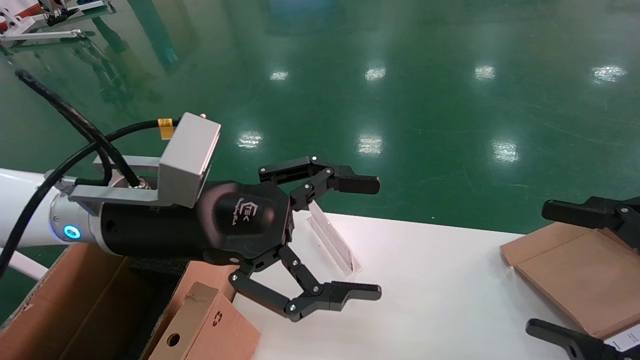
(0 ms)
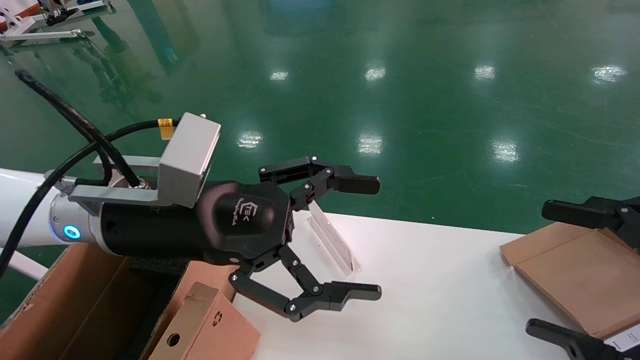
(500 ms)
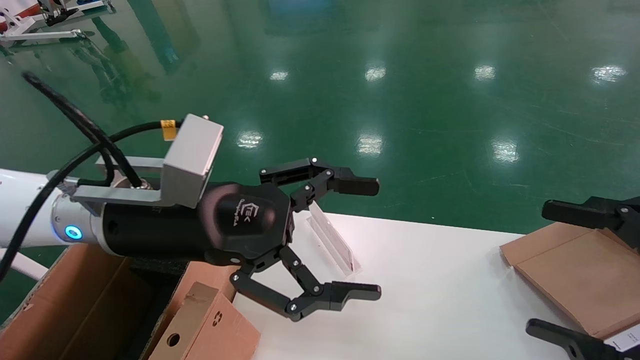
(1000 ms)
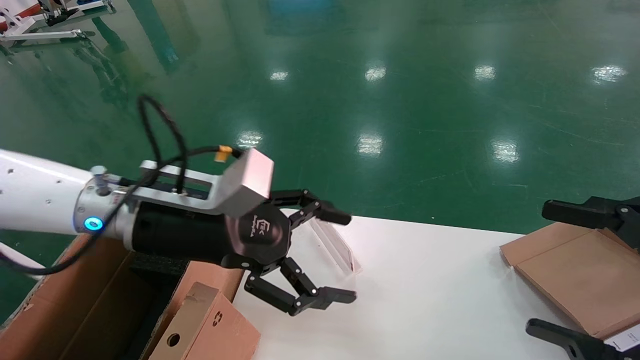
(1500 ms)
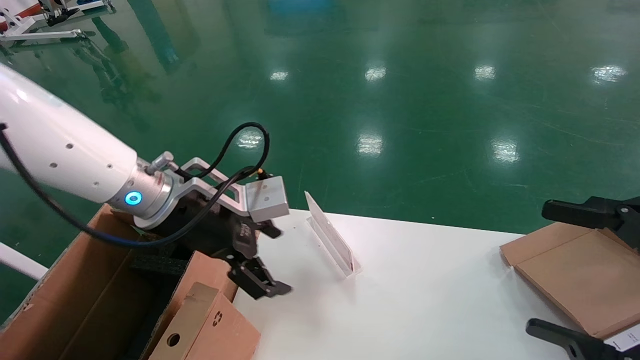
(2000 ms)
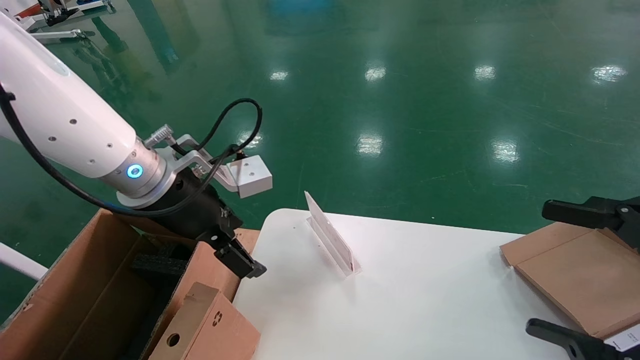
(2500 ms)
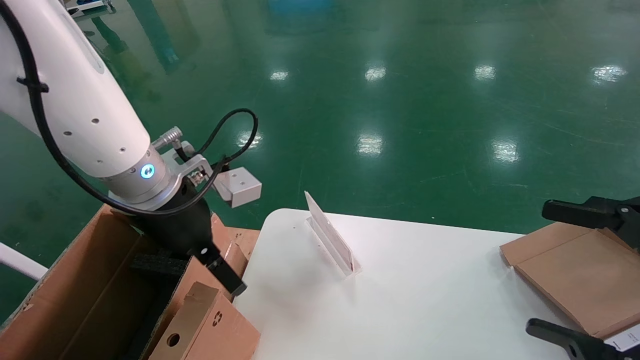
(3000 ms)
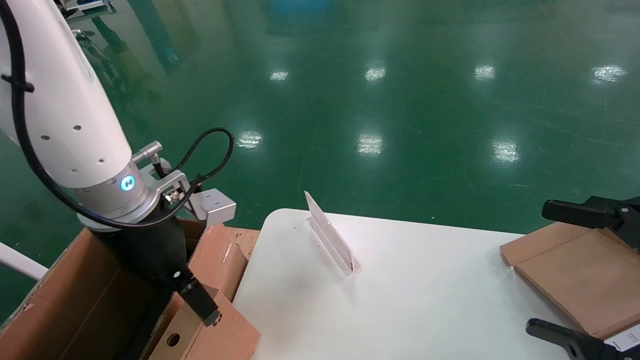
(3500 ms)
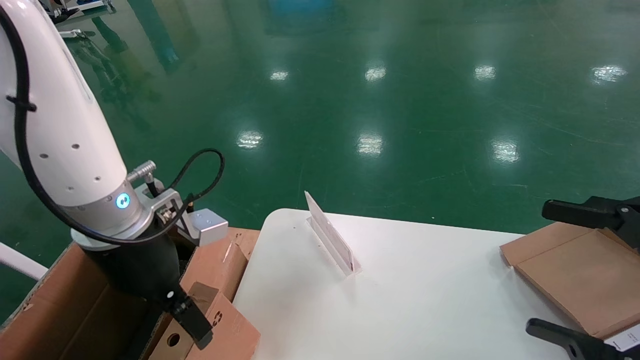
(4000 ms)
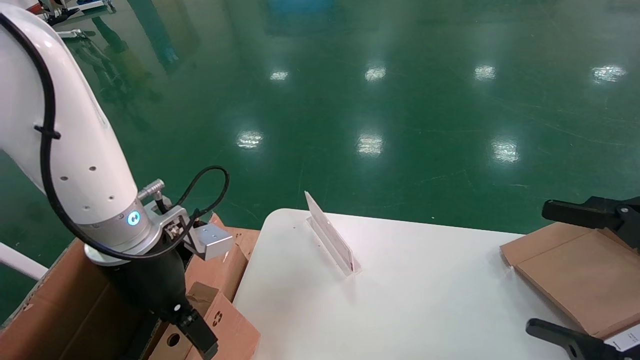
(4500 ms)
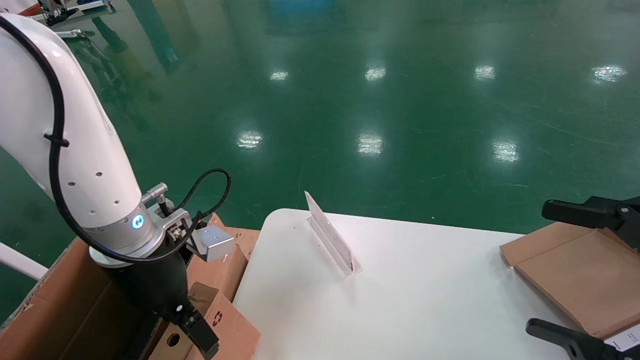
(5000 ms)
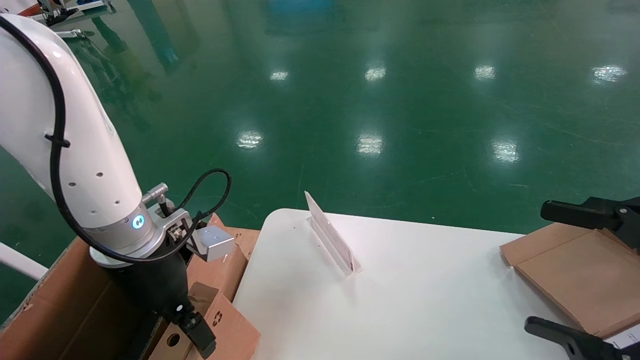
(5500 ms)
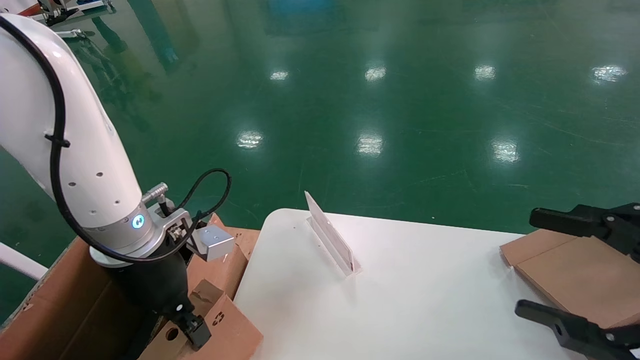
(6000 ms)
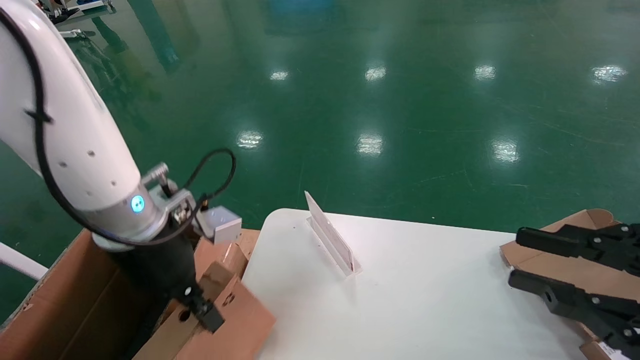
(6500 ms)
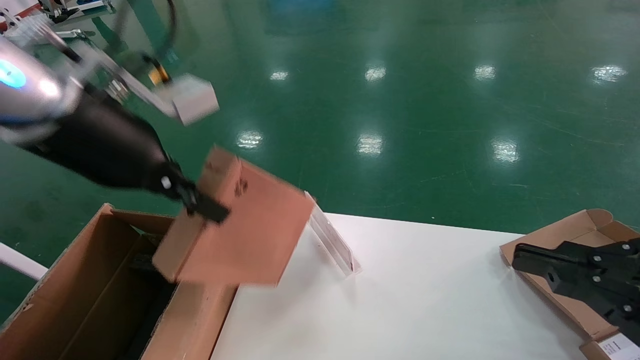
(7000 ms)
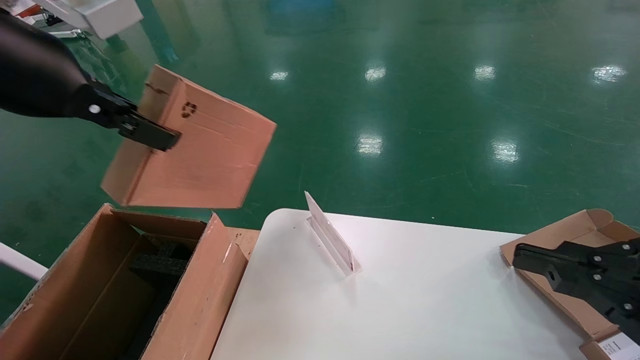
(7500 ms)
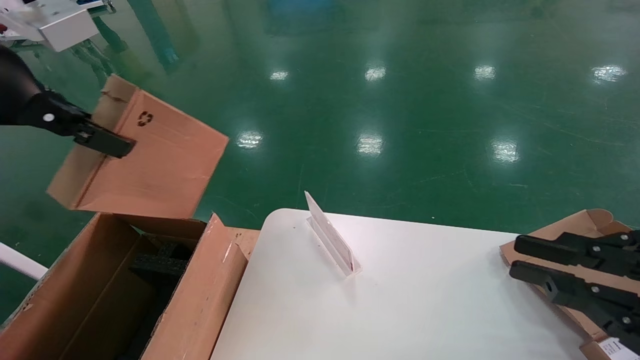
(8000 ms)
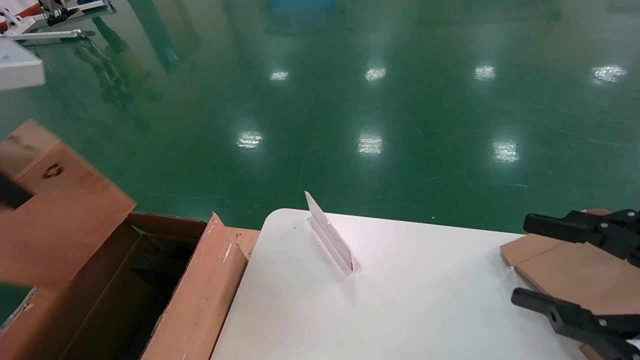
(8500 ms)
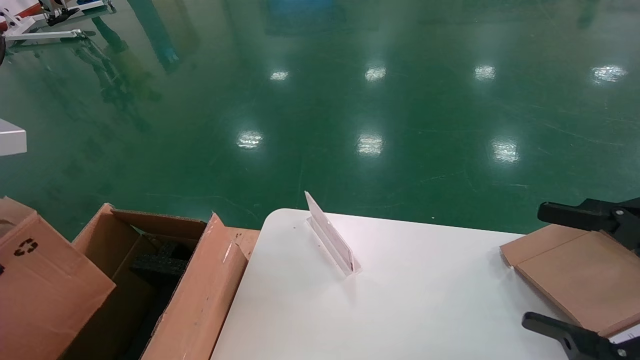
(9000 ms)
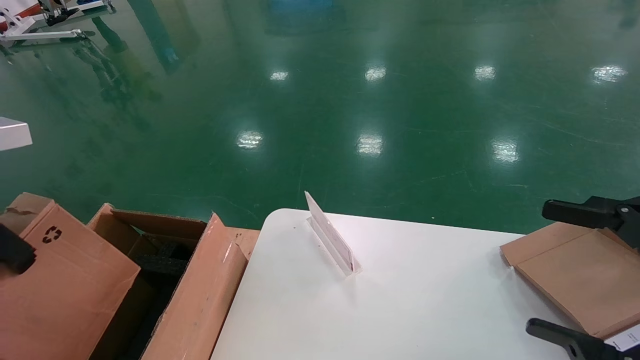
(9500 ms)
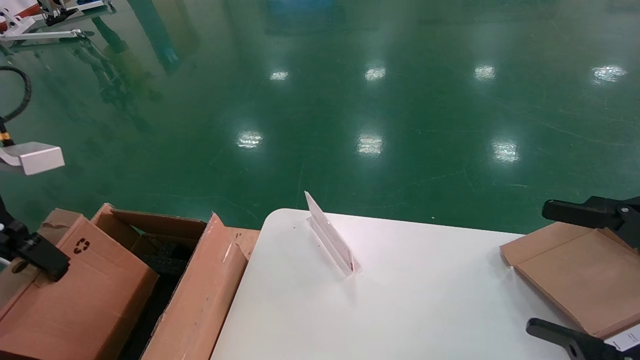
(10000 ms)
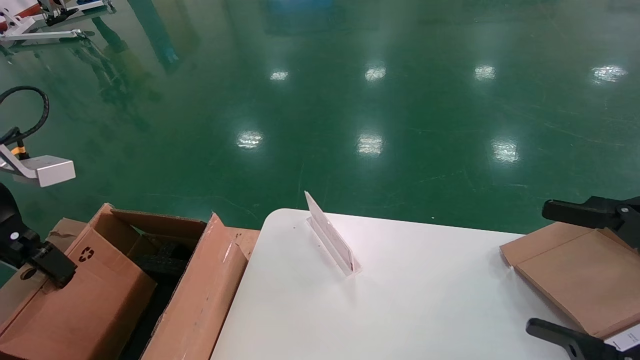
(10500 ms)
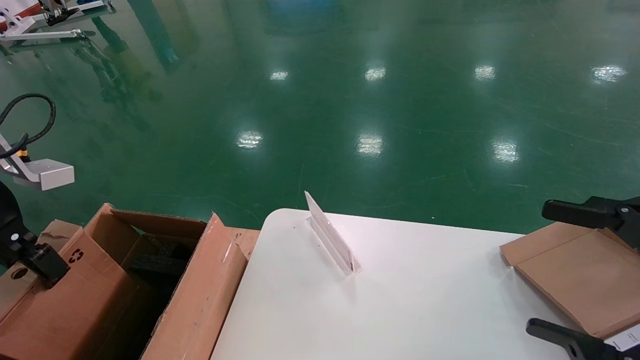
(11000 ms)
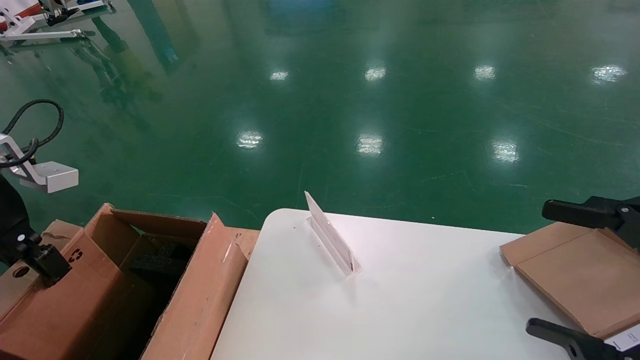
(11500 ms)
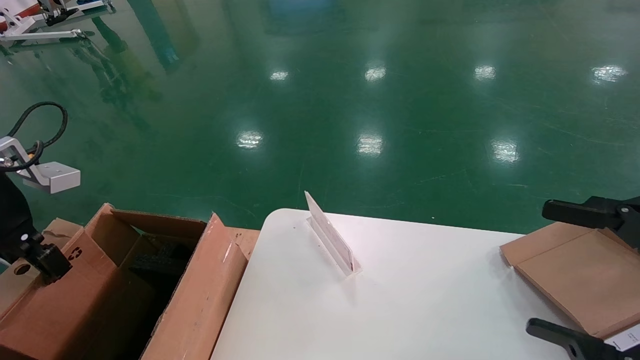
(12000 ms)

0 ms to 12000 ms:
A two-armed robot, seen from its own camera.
Task of the whole recording: pick up the small cardboard box and load it into the large cardboard box.
Step, 3500 ms to 10500 ms: Pick up the mouse and power cord box.
0 ms to 2000 ms: The left gripper heads forward, covering roughly 5 cm.
4000 ms to 6000 ms: The left gripper closes.
6000 ms to 8000 ms: The left gripper moves upward and to the left, about 25 cm, and closes up, while the right gripper closes up.
8000 ms to 10000 ms: The right gripper opens; the left gripper is displaced downward and to the left by about 15 cm.
10000 ms to 12000 ms: The left gripper changes place by some 5 cm.

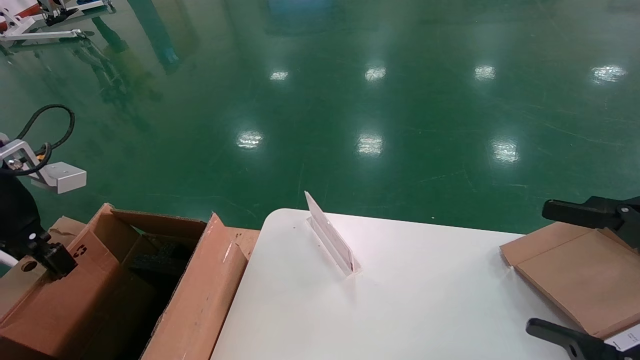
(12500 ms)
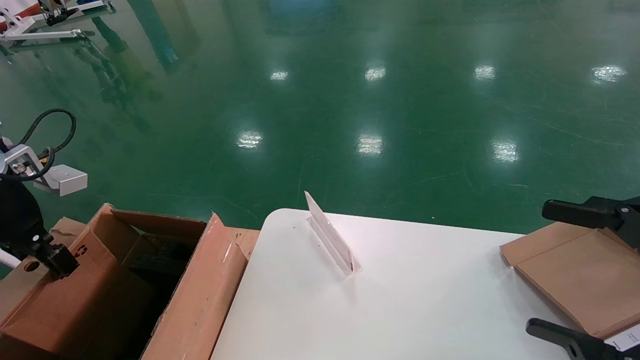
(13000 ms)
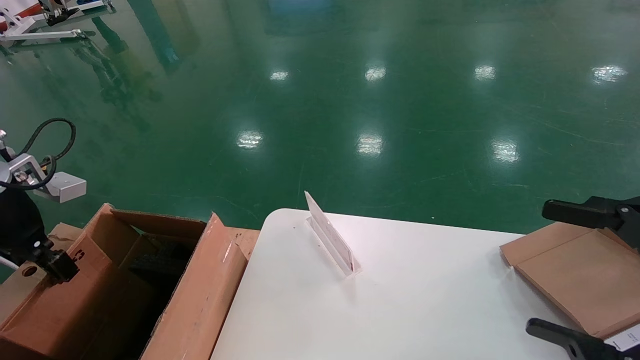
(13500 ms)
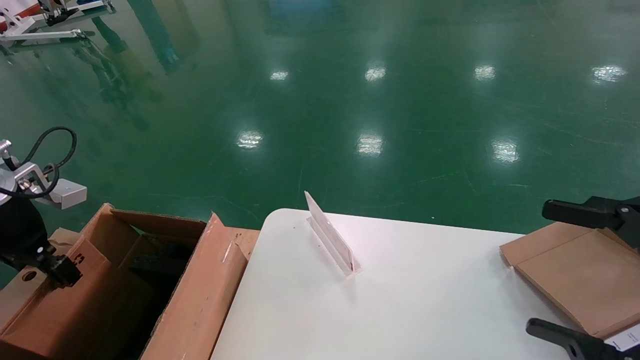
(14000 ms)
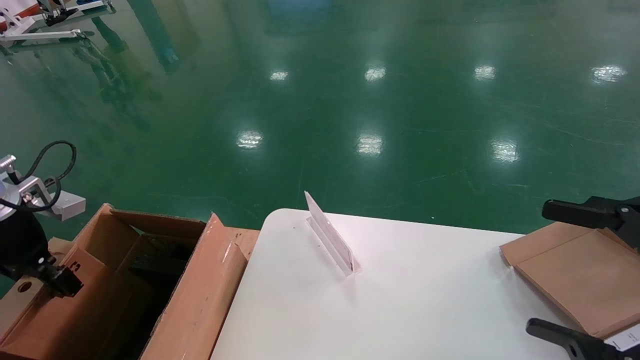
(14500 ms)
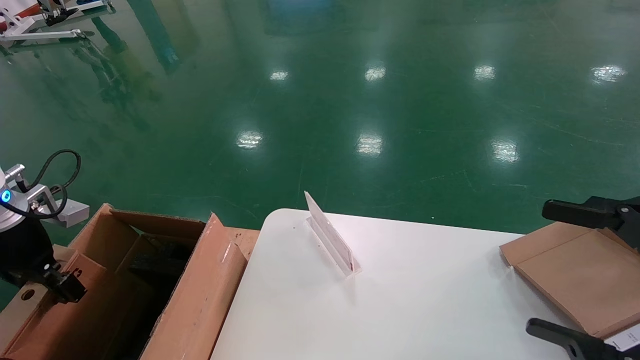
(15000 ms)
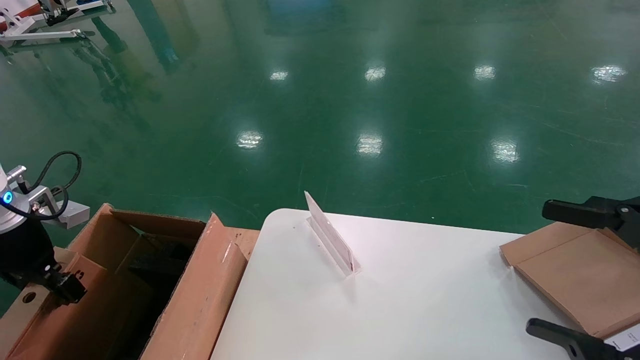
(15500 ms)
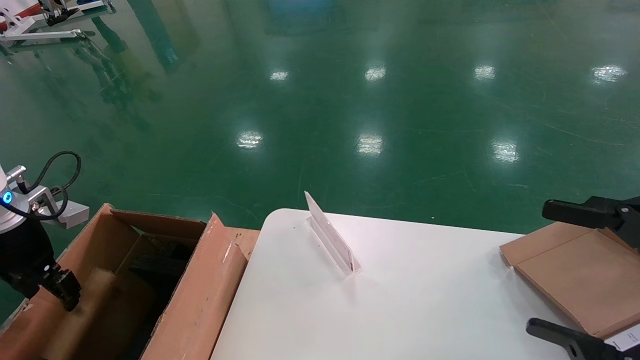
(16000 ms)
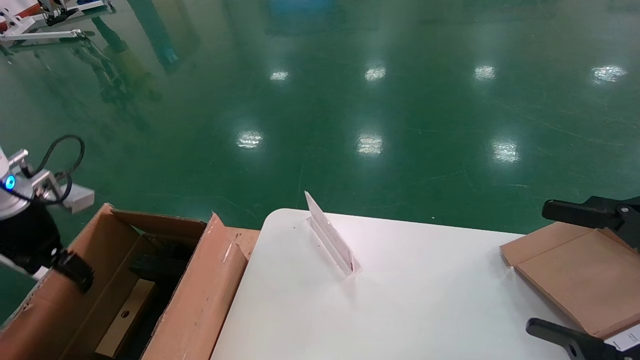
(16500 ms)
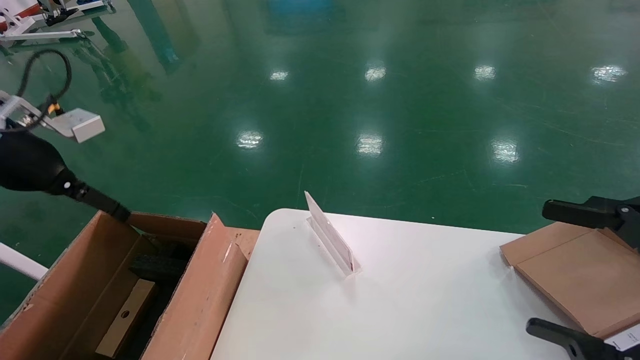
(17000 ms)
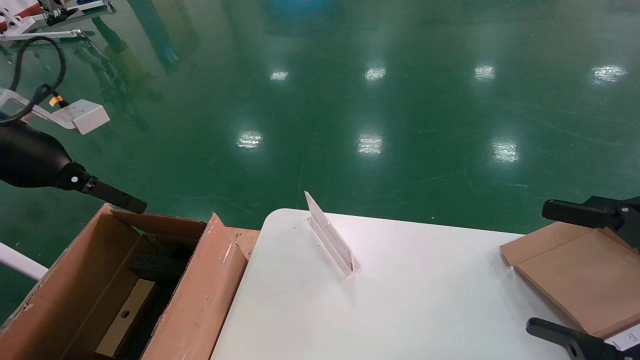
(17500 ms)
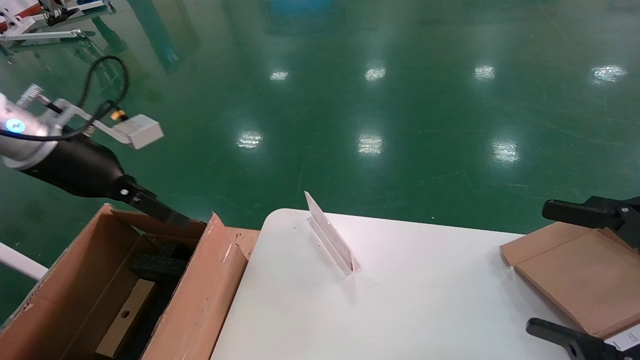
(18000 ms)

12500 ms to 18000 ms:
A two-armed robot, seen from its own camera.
Task of the whole recording: pick up the small cardboard box and load it into the large cardboard box.
Step, 12500 ms to 18000 ms: Place the mouse and power cord box into the case.
12500 ms to 14500 ms: The left gripper is displaced downward by about 5 cm.
14500 ms to 16000 ms: The grippers stay close to where they were, moving slightly.
16000 ms to 18000 ms: The left gripper travels to the right and upward by roughly 15 cm, and opens its fingers.

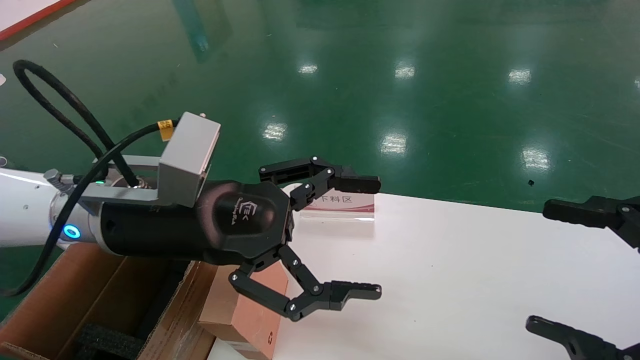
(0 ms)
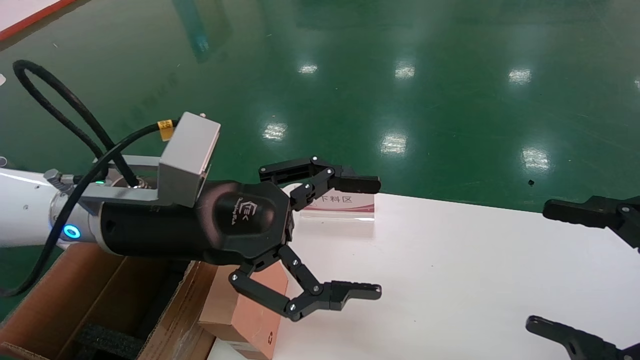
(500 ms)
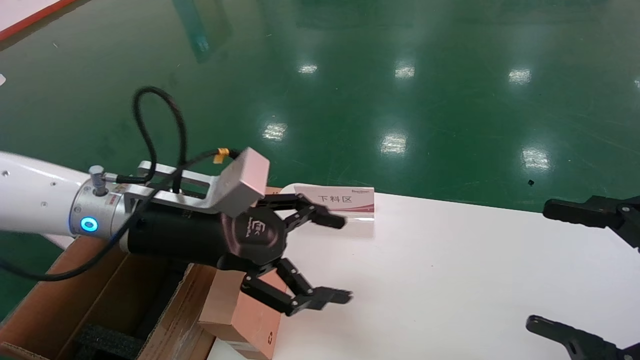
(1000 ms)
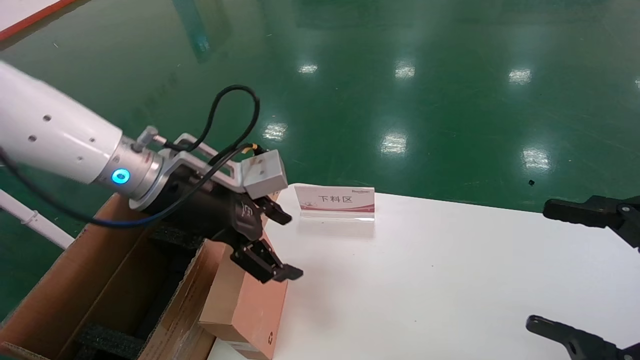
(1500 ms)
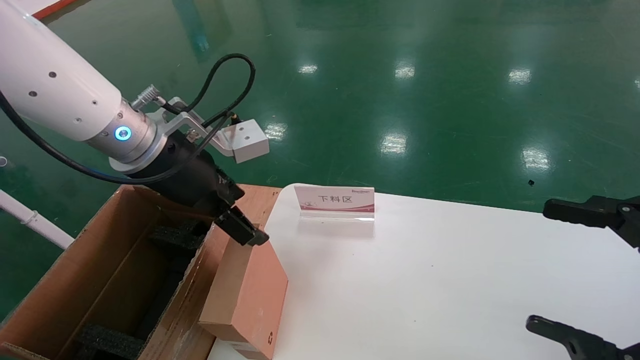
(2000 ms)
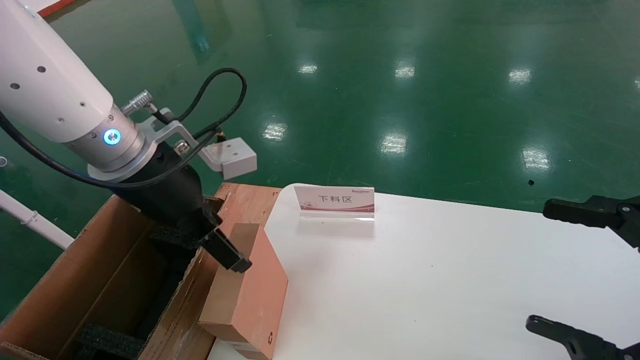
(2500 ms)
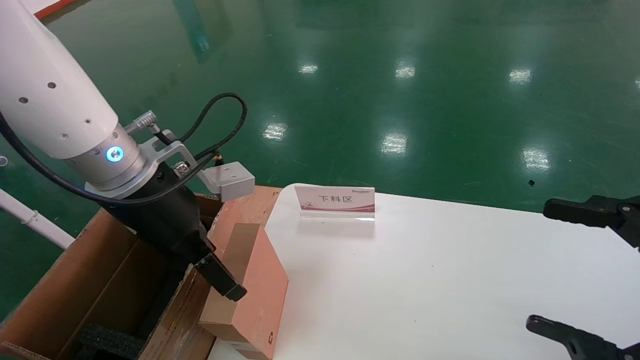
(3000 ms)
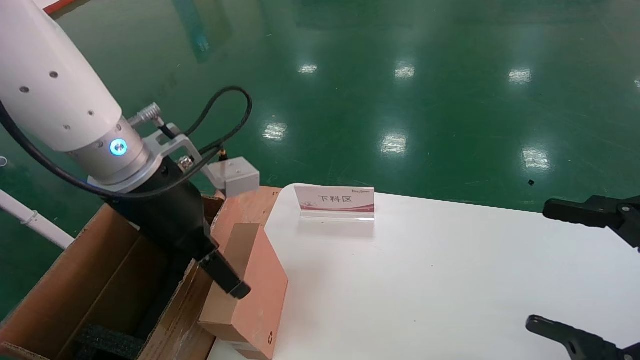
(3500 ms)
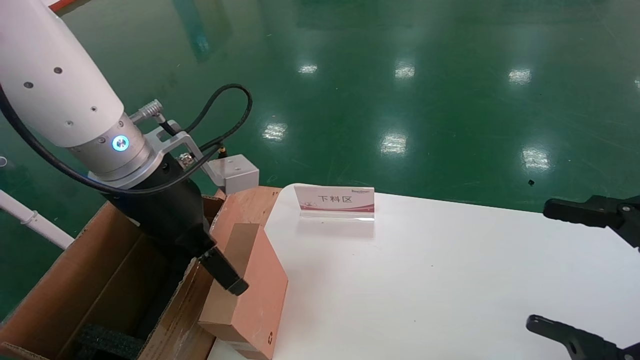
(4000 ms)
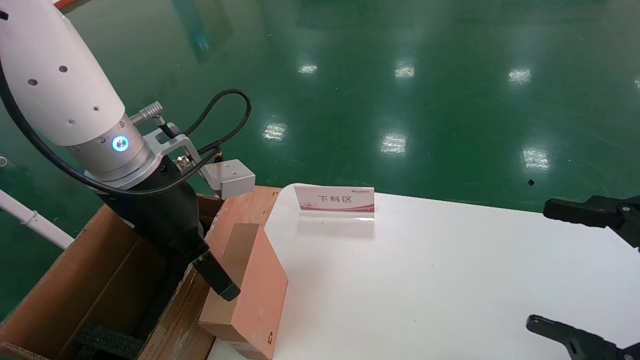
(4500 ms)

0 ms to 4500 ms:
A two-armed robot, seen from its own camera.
Task of the whole recording: pick up the small cardboard box and load it into the large cardboard box.
0 ms to 2000 ms: The left gripper shifts roughly 5 cm forward.
